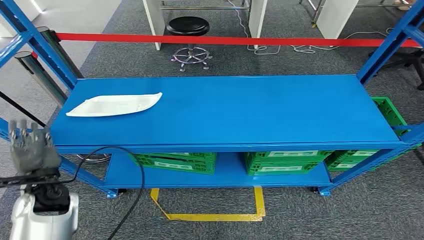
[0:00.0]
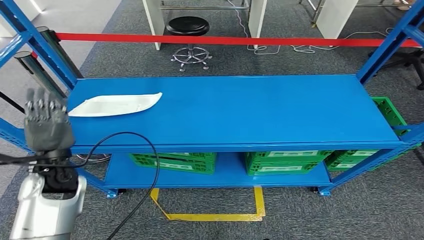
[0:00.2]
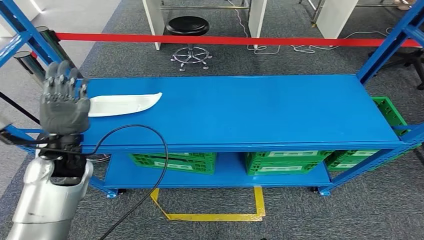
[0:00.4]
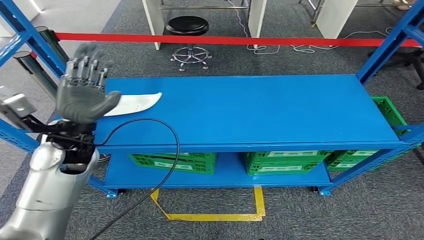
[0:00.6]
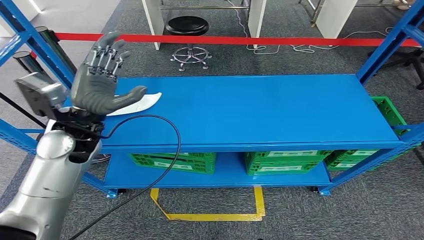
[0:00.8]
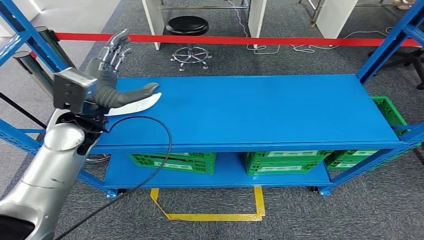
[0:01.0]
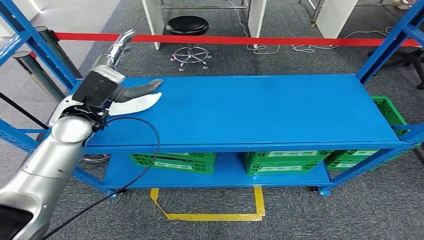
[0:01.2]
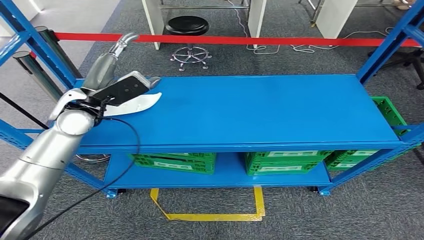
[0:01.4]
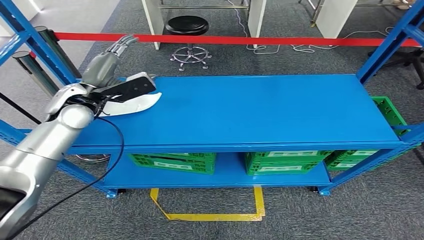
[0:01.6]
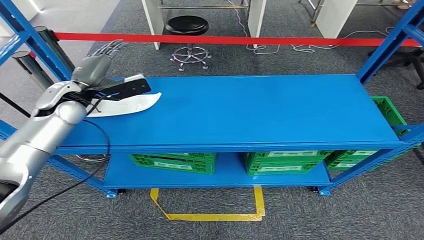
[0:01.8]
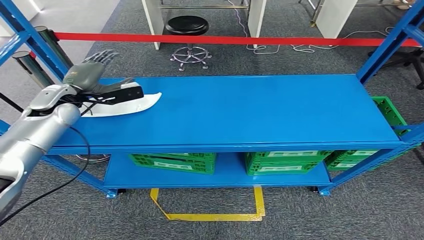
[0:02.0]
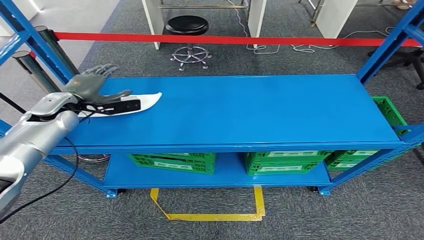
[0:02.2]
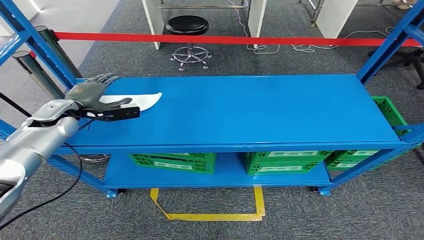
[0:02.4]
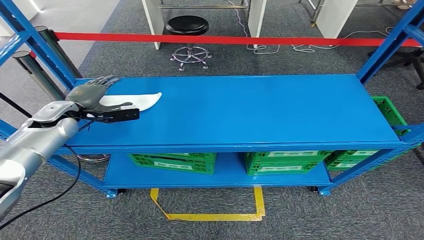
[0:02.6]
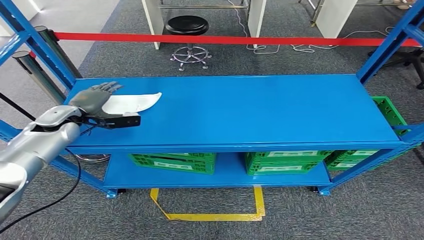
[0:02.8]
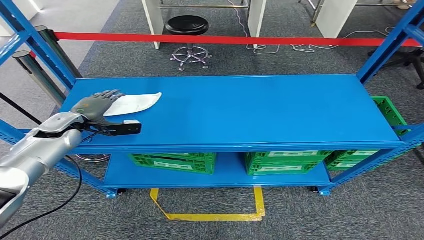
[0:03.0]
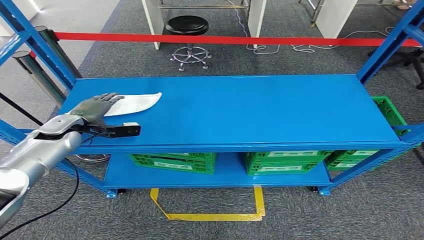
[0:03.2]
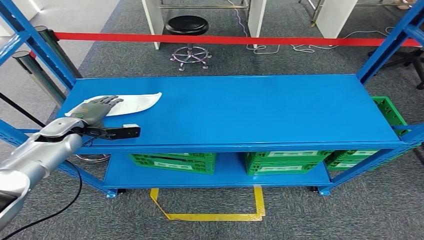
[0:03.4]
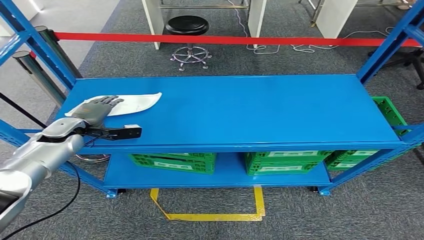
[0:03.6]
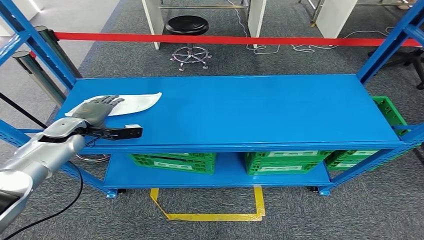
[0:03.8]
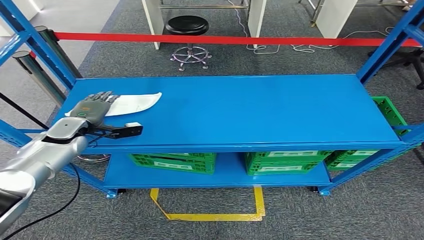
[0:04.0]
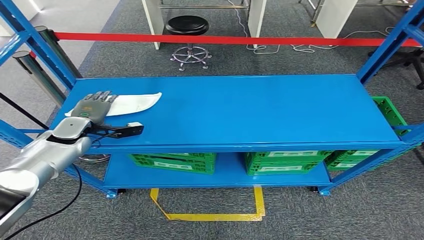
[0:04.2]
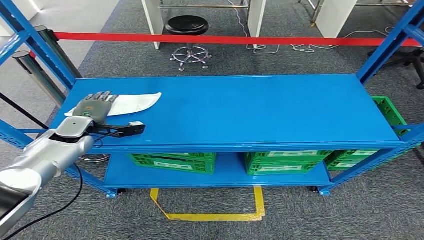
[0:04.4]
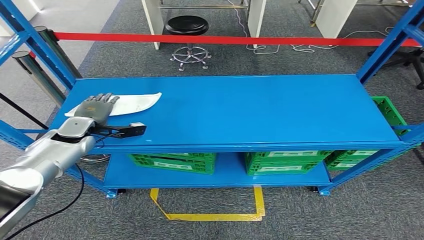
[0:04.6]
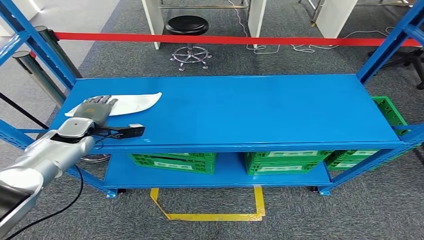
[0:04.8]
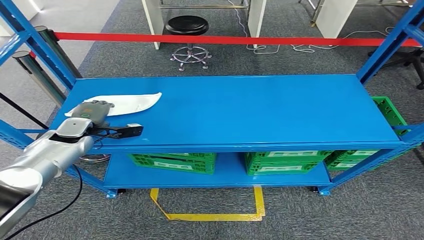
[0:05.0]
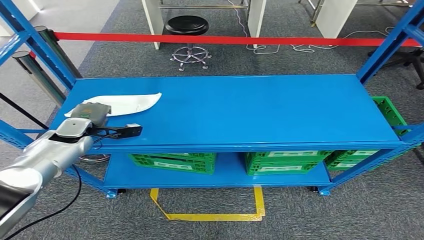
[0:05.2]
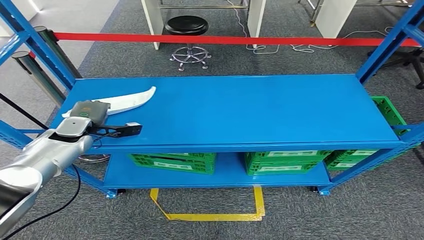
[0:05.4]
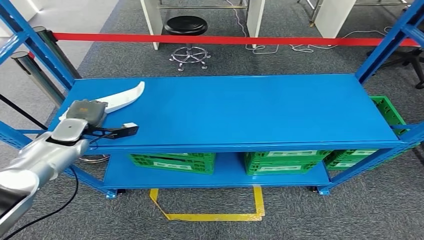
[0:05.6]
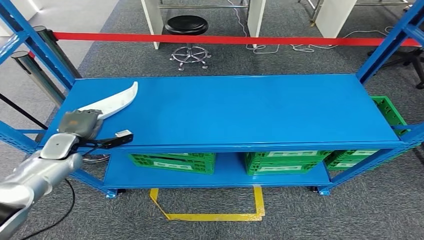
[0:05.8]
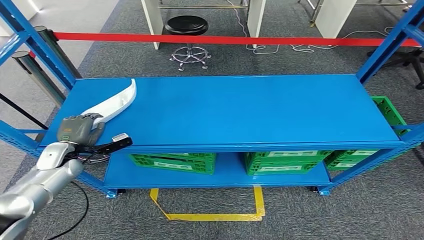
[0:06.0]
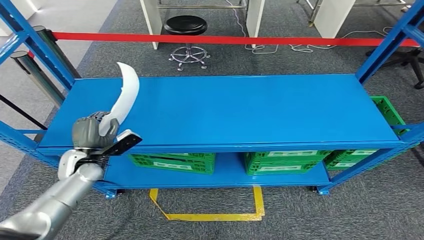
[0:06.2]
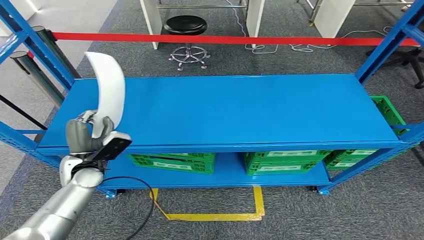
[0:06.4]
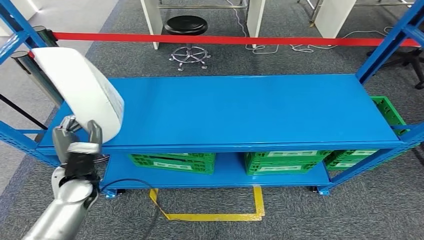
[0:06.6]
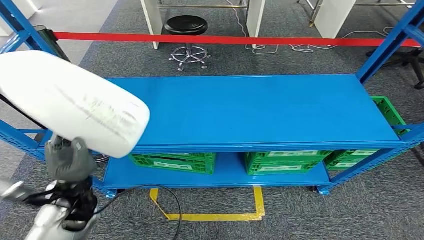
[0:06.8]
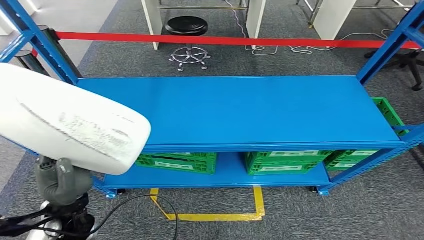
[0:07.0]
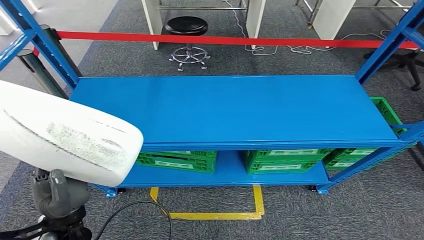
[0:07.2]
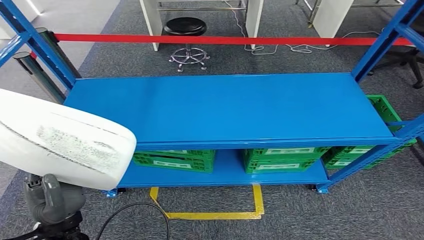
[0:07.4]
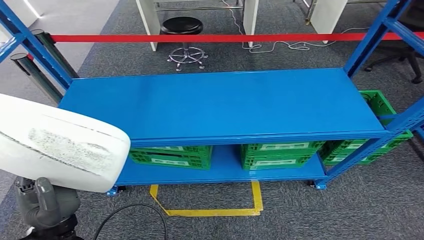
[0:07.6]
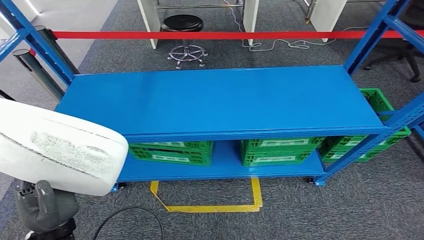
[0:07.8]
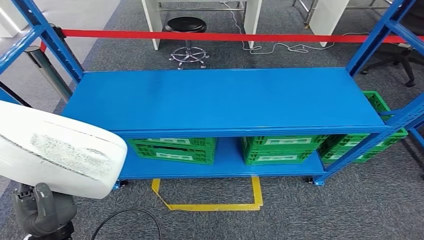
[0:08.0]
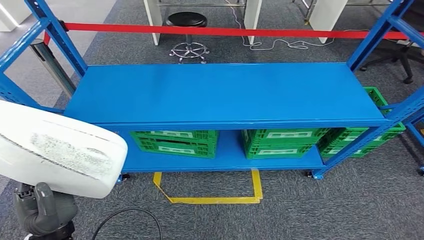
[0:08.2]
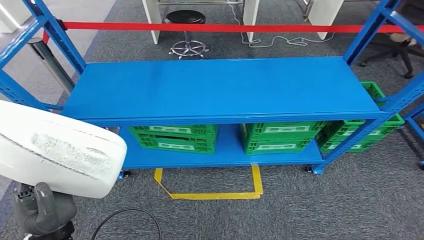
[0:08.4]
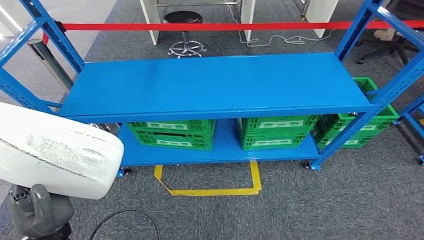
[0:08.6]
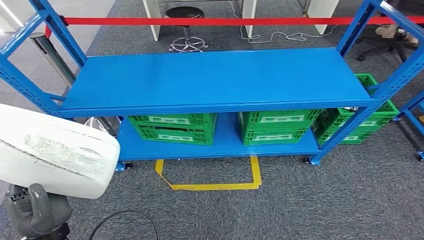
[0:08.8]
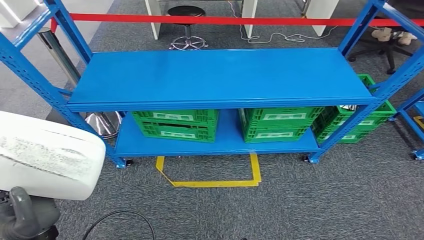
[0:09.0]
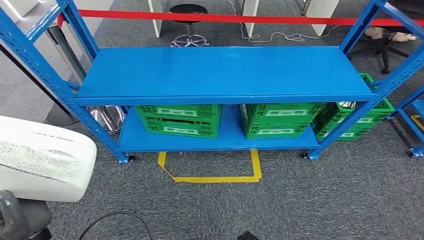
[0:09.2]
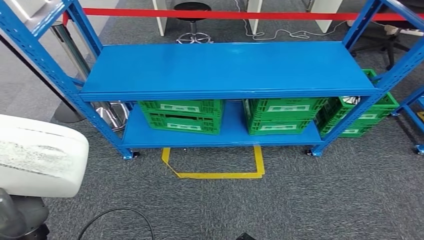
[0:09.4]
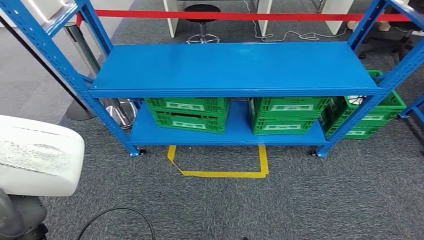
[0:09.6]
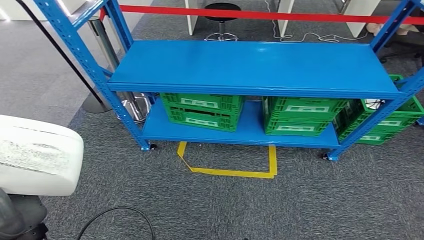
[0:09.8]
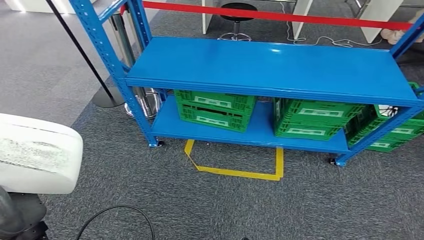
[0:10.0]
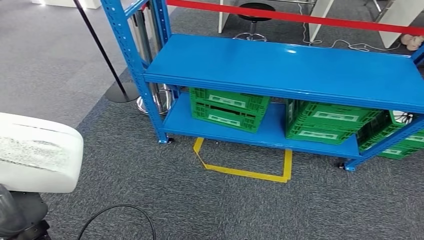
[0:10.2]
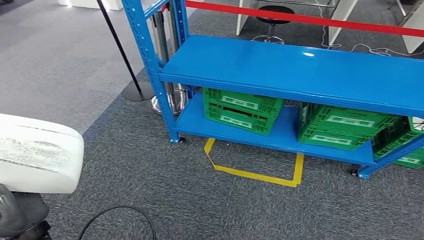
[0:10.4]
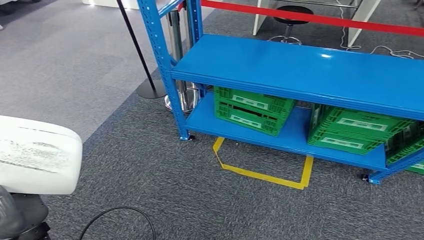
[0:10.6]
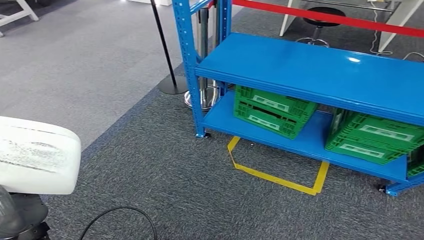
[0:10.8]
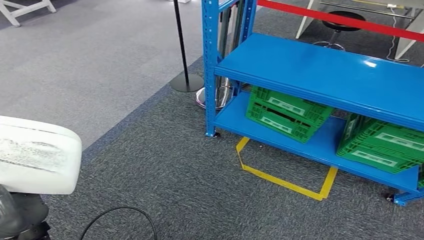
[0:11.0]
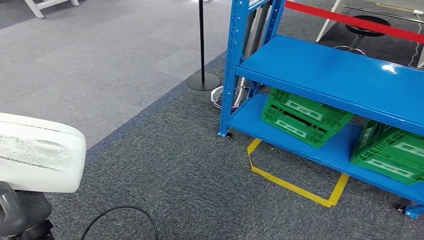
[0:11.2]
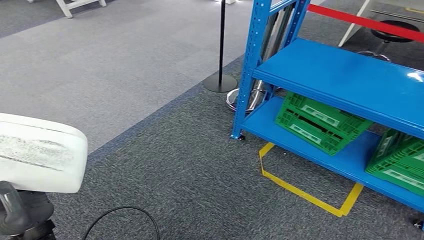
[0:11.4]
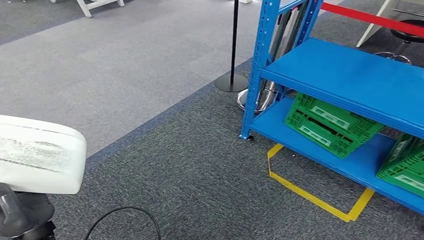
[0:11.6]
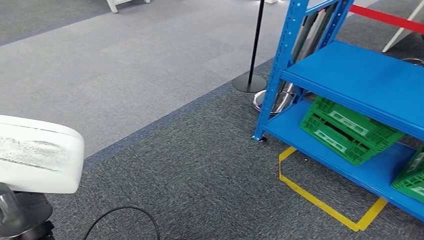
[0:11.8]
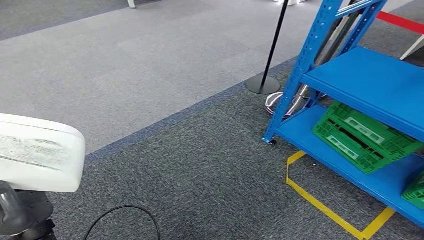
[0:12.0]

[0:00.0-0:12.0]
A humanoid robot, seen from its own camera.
Step, 0:00.0 to 0:10.0: Pick up the small component from the shelf.
0:01.6 to 0:03.0: The left hand heads downward and to the left, covering about 15 cm.
0:03.0 to 0:04.4: There are only small adjustments of the hands.
0:04.4 to 0:06.0: The left hand travels downward and backward by roughly 10 cm.

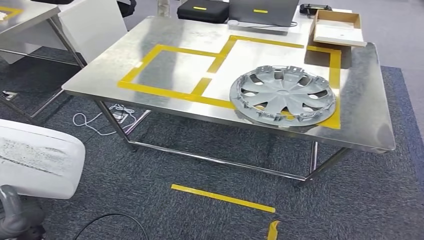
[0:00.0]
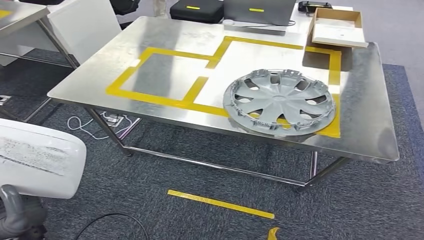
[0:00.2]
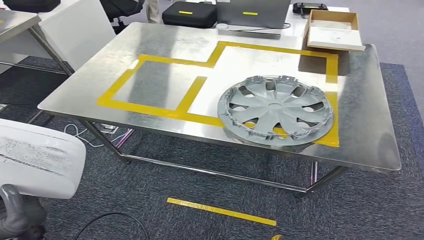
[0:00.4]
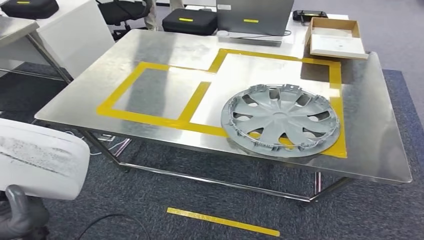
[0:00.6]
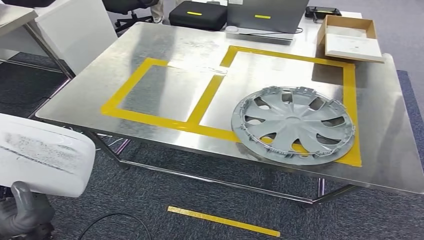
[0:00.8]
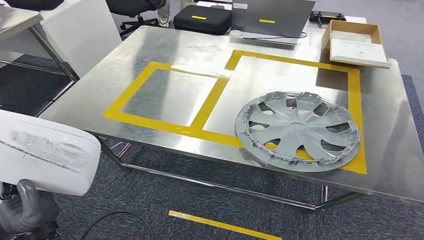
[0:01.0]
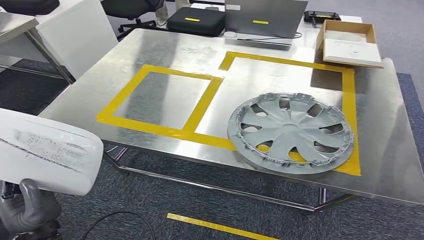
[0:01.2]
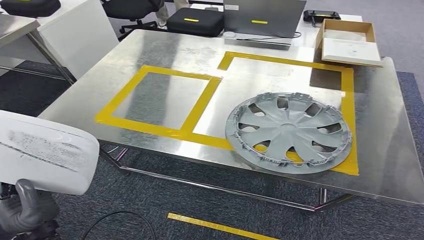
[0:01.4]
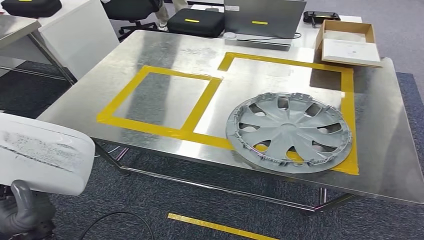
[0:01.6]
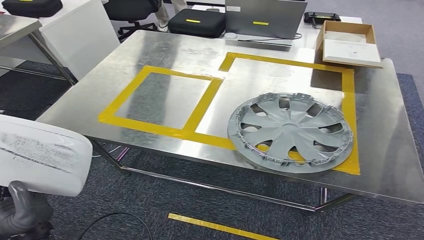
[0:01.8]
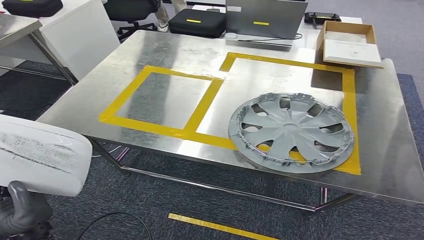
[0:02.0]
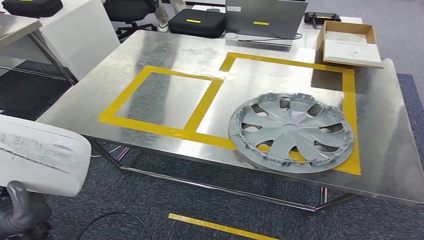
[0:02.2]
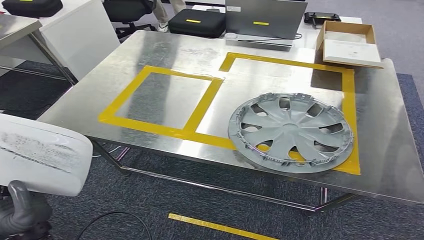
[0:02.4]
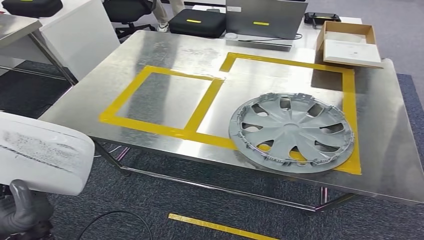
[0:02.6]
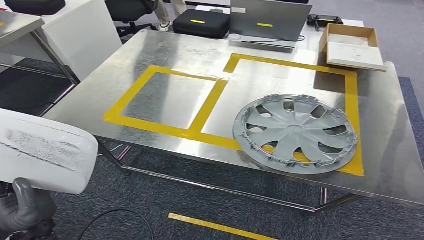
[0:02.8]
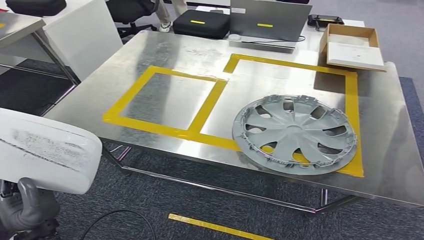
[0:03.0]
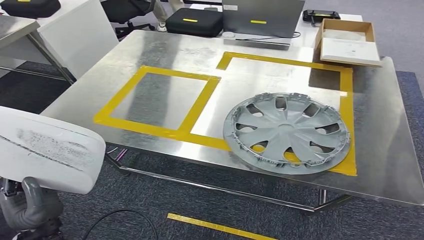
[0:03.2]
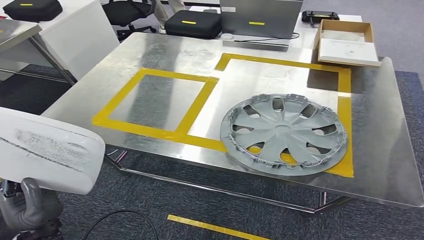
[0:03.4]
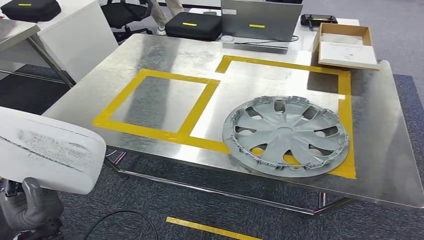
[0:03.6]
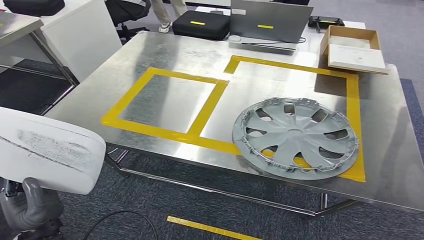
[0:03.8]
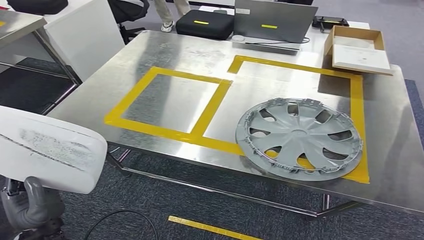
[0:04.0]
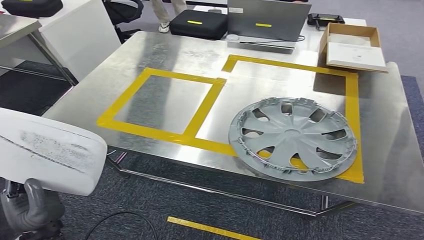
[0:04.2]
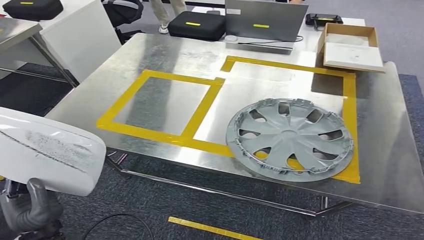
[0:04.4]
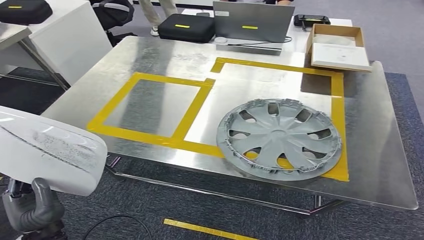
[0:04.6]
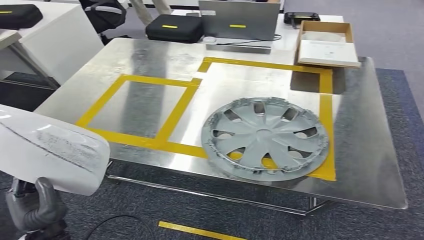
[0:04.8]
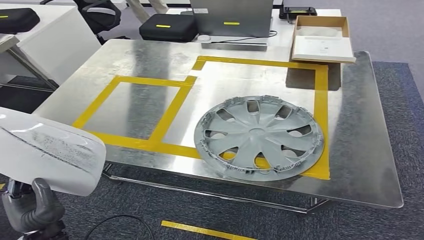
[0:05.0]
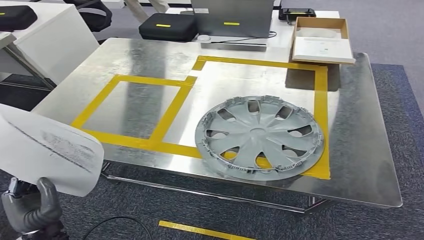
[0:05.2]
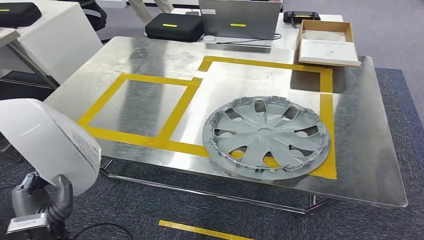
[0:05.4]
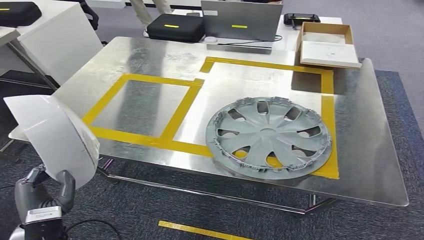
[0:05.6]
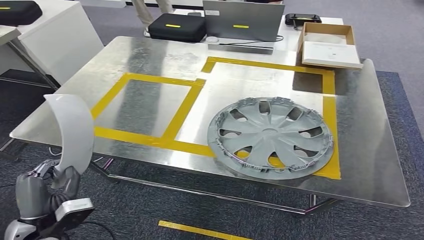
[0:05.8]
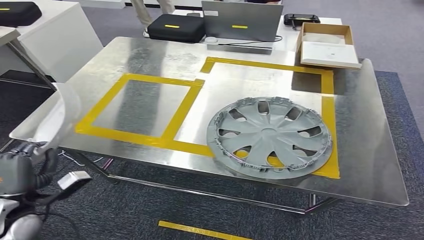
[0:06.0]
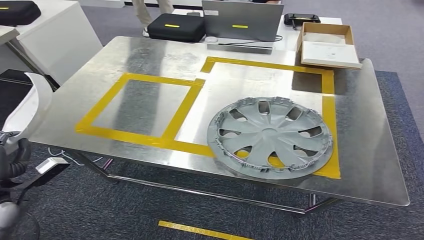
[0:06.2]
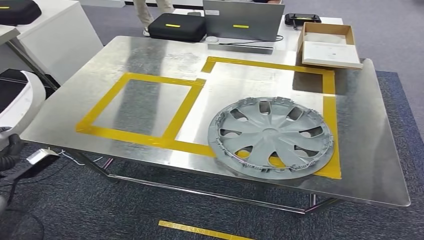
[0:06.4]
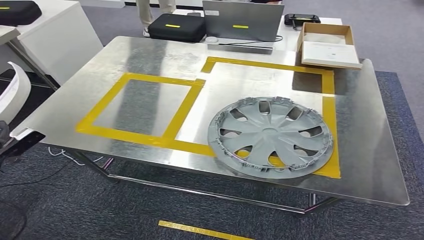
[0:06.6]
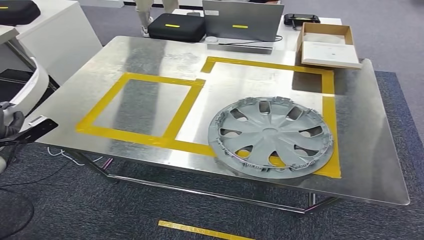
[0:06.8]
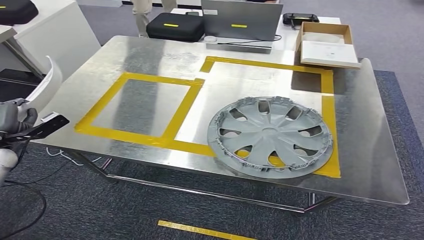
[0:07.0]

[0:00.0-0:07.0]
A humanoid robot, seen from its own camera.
0:01.4 to 0:02.8: Both hands stay put.
0:05.6 to 0:07.0: The left hand is displaced forward and to the left by some 30 cm.
